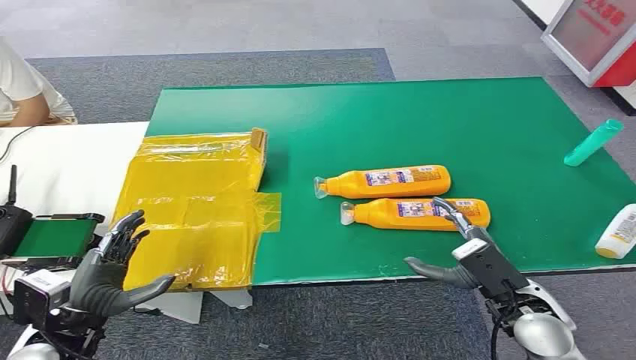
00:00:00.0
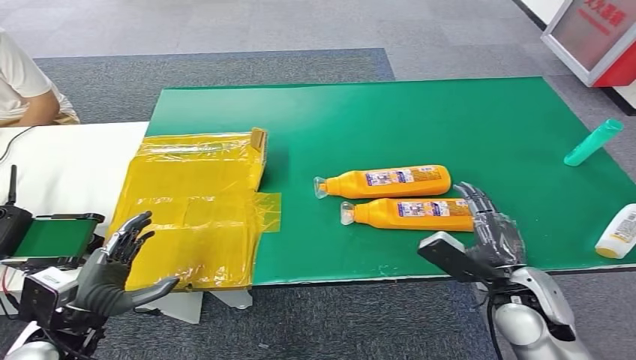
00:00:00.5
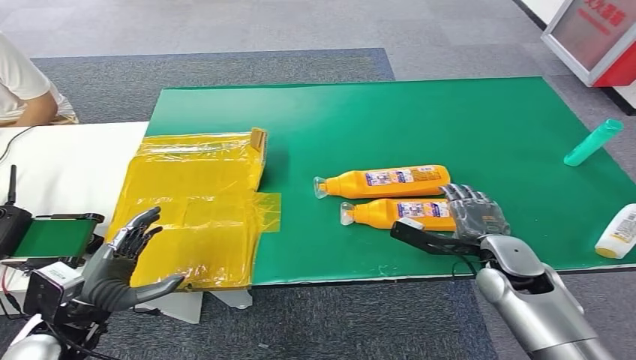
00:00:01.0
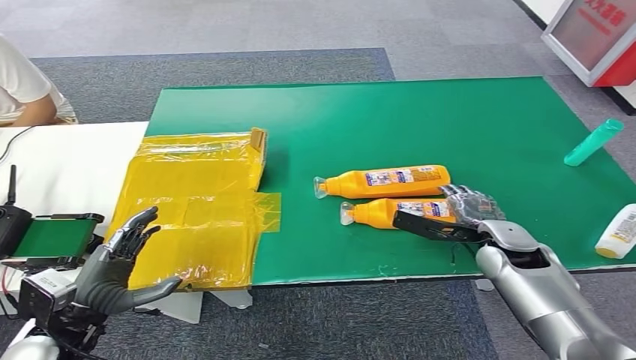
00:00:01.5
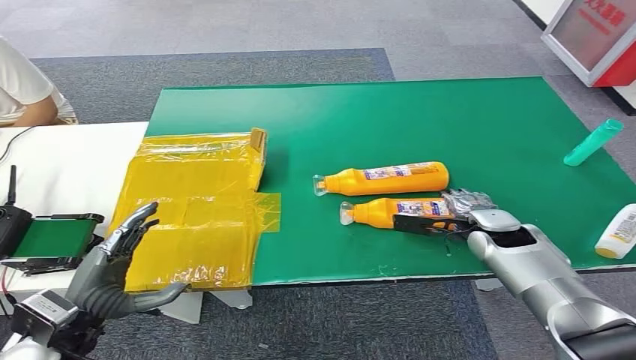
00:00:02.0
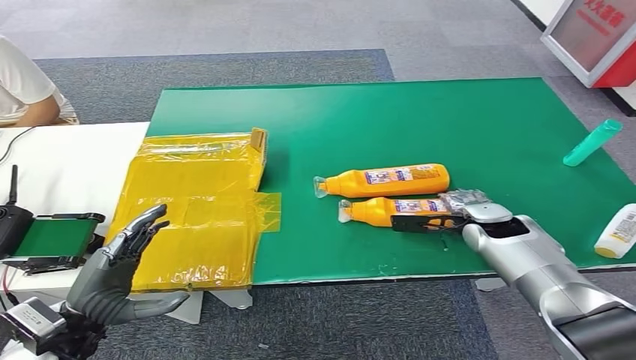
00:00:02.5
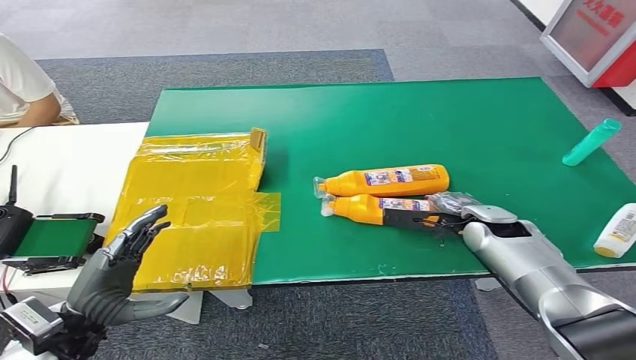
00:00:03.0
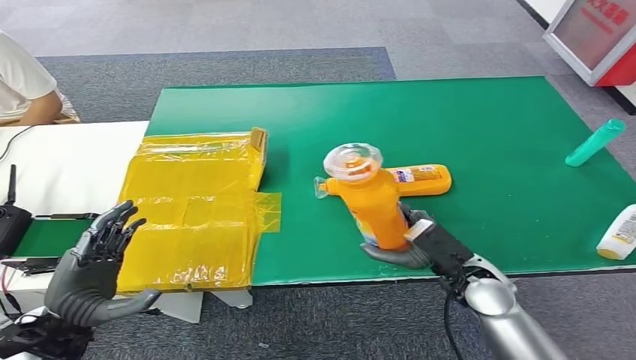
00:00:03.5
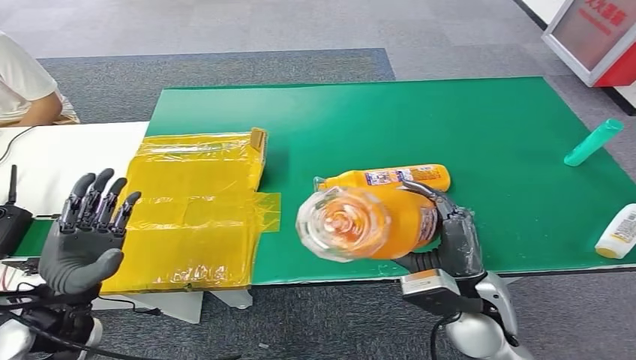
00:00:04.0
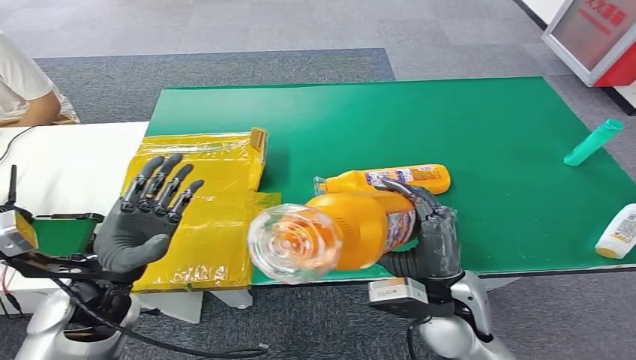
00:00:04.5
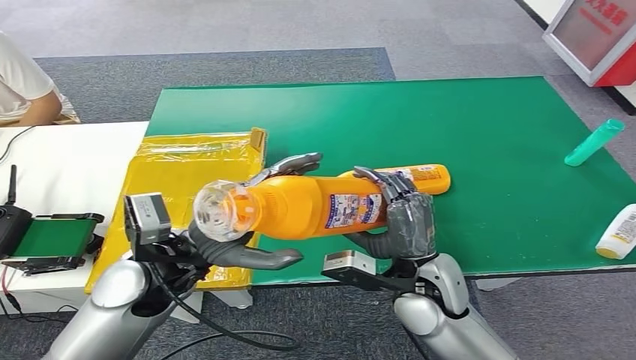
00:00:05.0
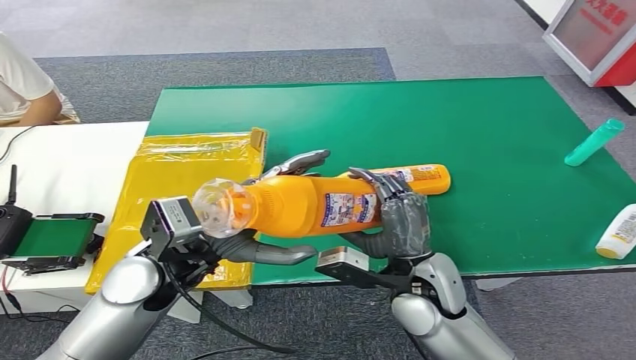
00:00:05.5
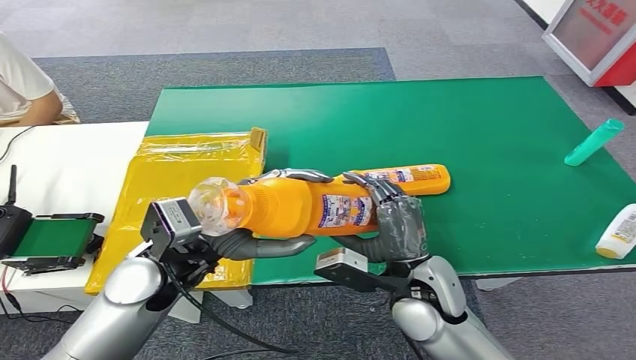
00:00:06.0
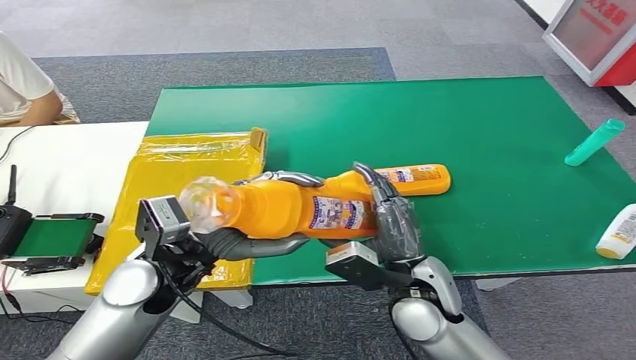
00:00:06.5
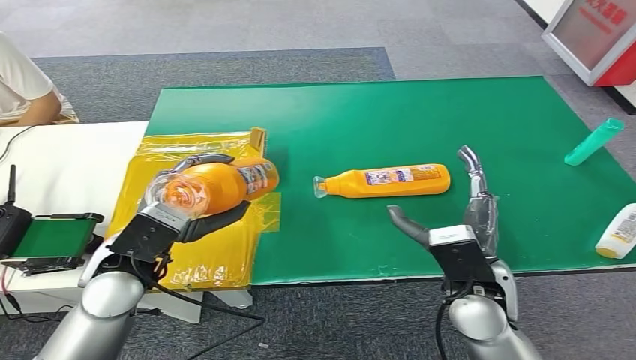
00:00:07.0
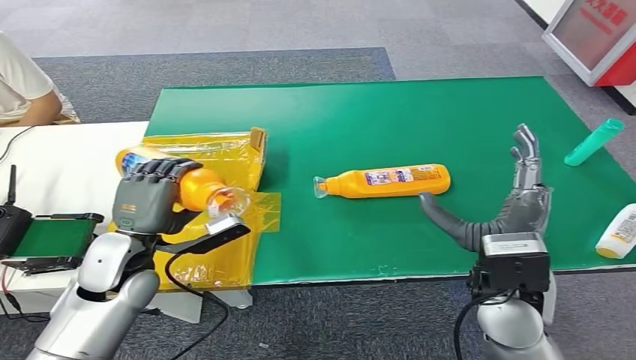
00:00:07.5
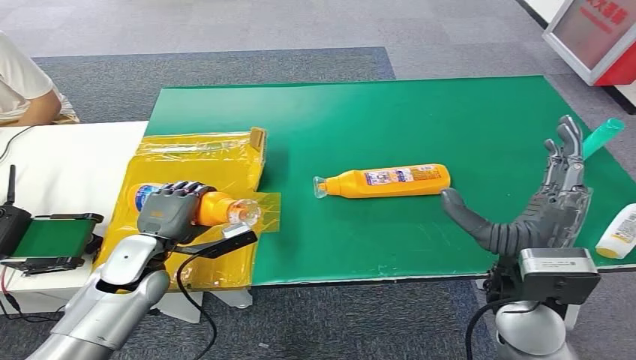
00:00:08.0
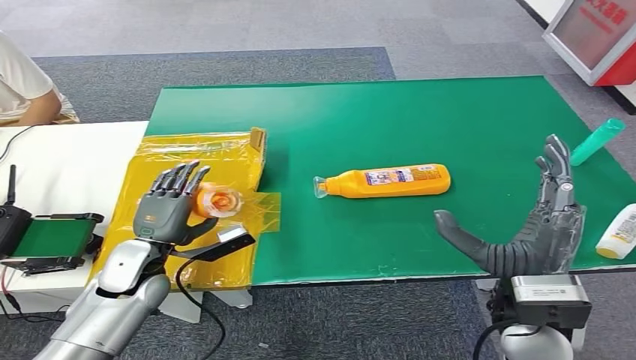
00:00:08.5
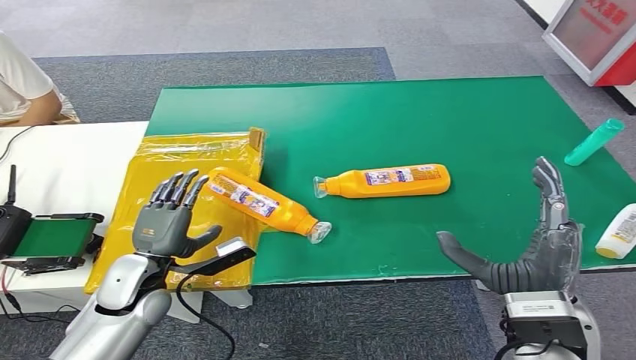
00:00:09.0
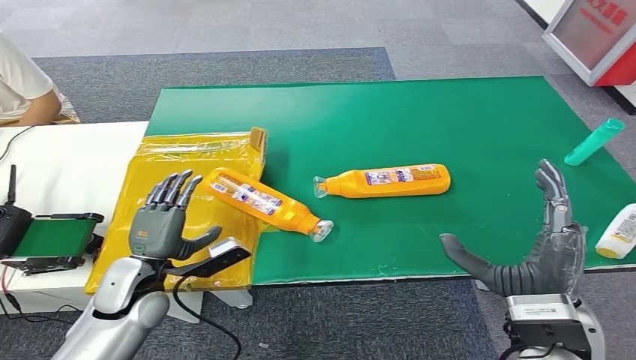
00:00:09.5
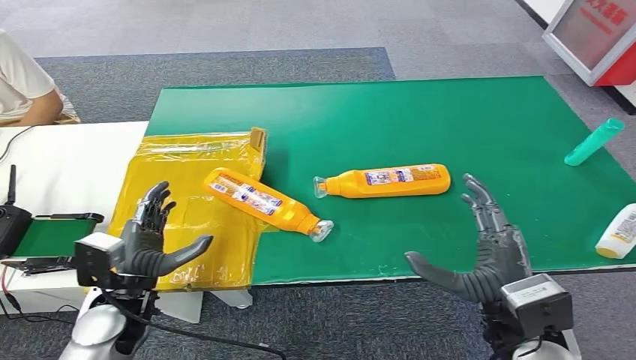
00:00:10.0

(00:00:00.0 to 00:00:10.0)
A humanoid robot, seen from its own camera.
Step, 00:00:00.0 - 00:00:03.5: Pick up the bottle from the table.
Step, 00:00:04.5 - 00:00:10.0: Turn the bottle to the front side.
00:00:02.0 - 00:00:04.0: The right hand shifts about 20 cm backward and to the left.
00:00:08.0 - 00:00:10.0: The right hand moves downward, roughly 5 cm. The left hand moves backward, some 10 cm.
